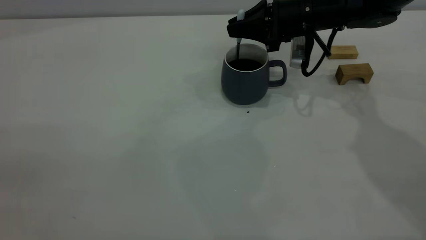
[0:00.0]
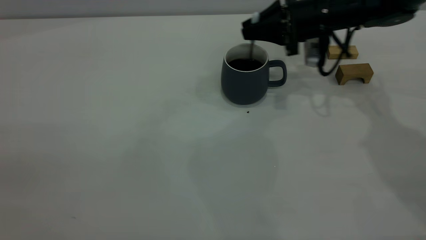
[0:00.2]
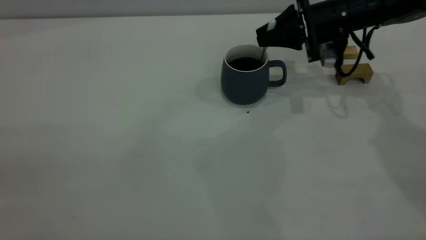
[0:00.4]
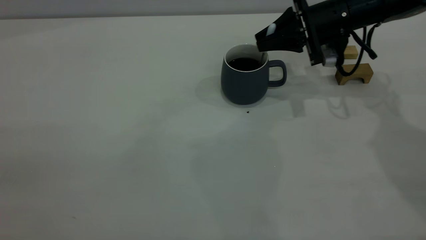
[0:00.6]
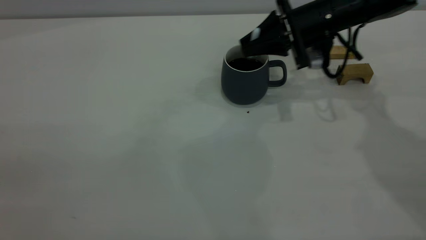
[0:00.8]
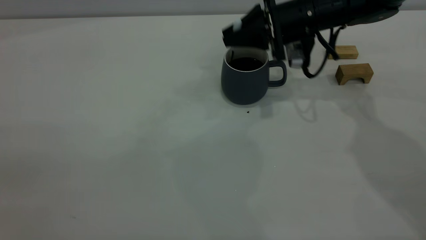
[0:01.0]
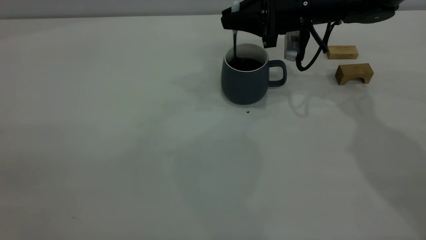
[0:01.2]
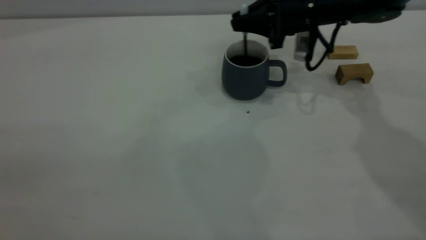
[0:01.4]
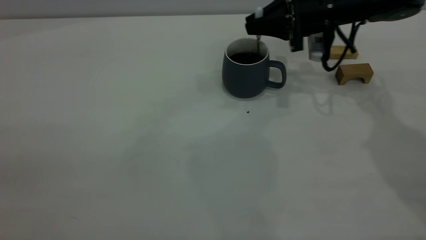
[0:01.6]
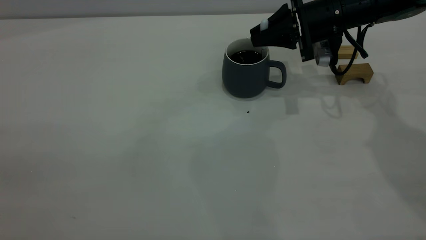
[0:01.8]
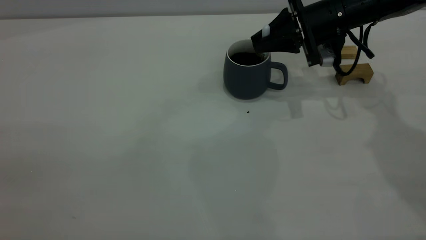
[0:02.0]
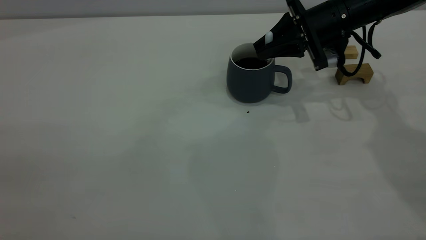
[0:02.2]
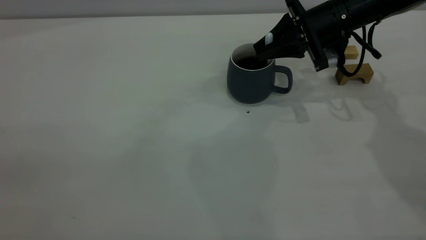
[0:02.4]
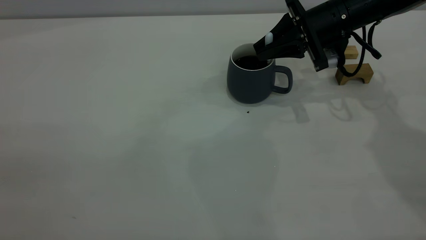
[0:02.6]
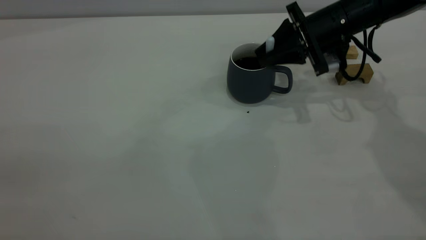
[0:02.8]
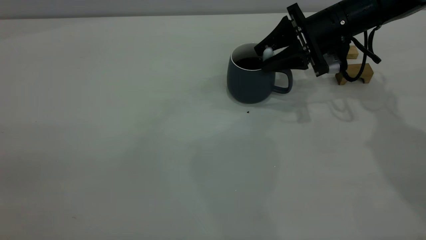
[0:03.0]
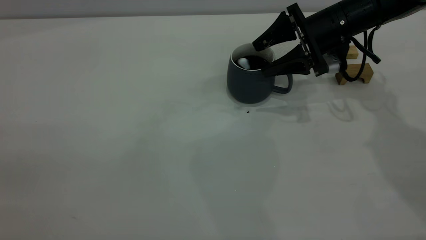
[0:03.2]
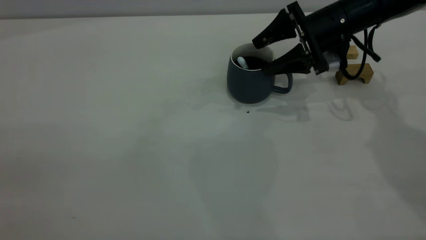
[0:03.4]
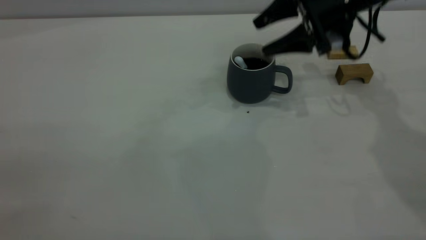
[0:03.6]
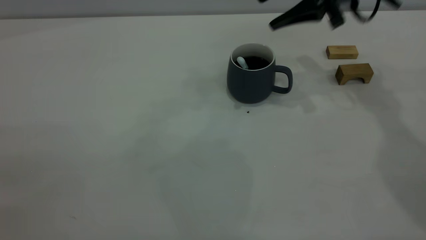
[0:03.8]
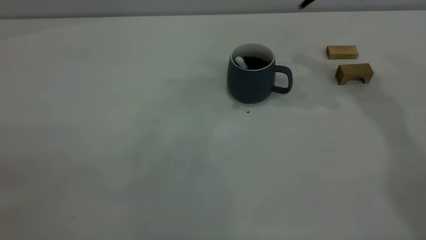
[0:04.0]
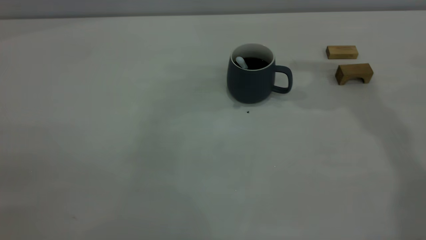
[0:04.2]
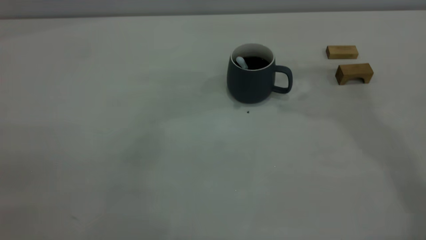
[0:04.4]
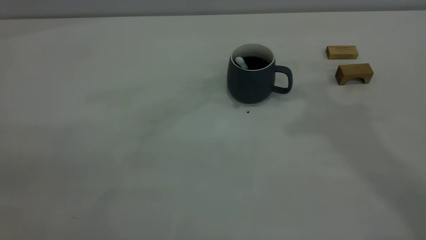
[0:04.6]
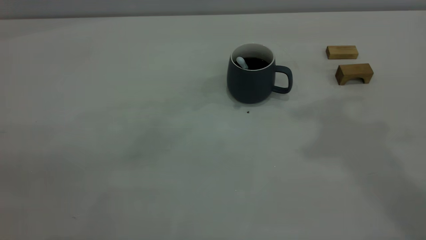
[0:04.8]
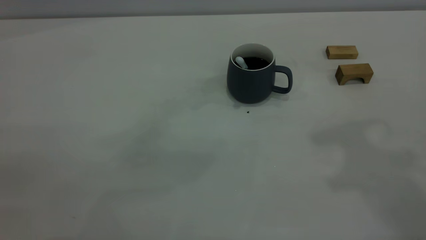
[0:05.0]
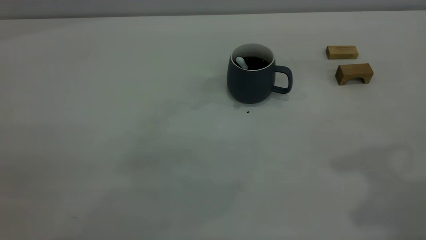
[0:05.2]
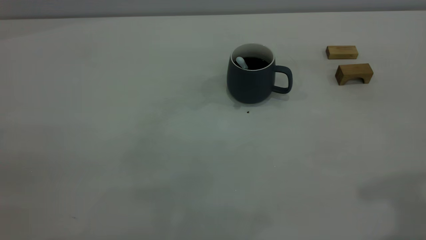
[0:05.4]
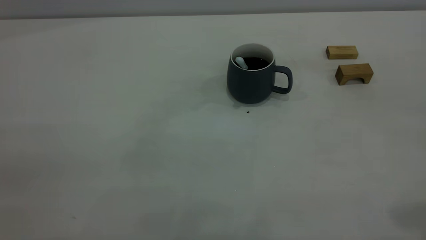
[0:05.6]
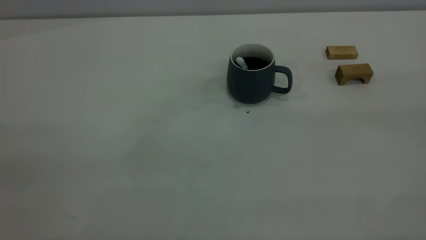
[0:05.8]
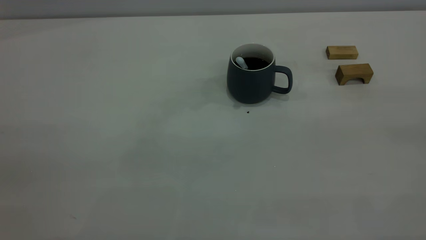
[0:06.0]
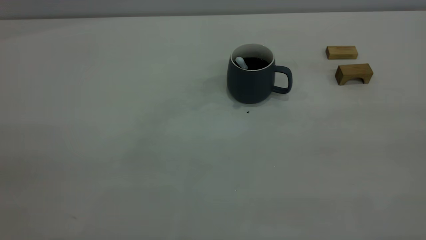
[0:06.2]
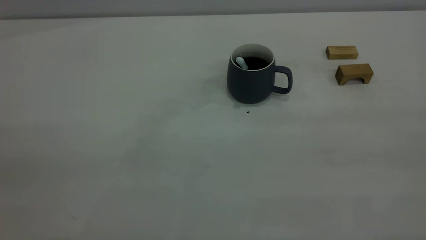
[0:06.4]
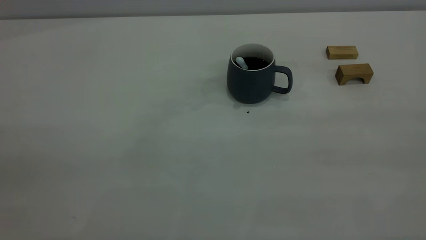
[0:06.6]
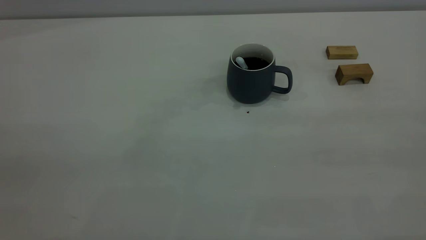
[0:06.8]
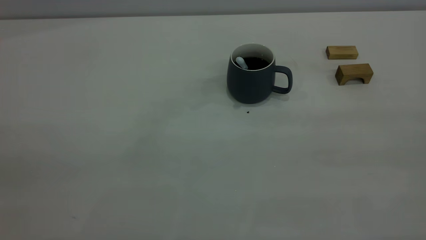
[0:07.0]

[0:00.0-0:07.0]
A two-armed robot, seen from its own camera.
Step, 0:00.0 to 0:03.6: Stir the coffee in the cup.
0:00.0 to 0:01.4: The grippers make only small movements.
0:02.8 to 0:04.2: The right gripper shifts approximately 25 cm upward, and opens, then closes once more.
